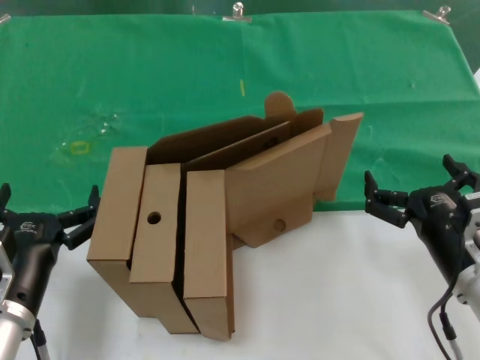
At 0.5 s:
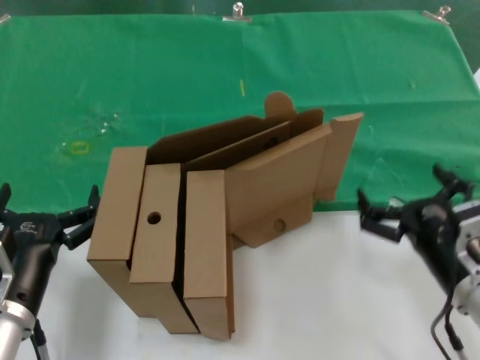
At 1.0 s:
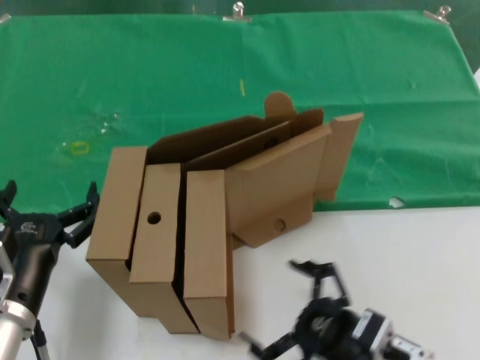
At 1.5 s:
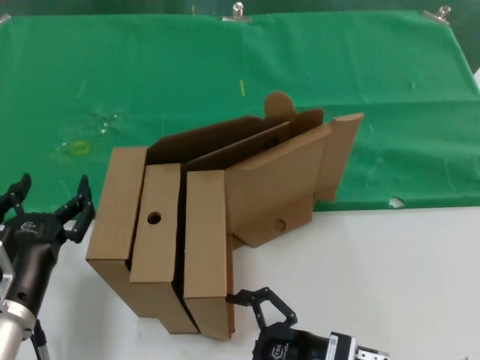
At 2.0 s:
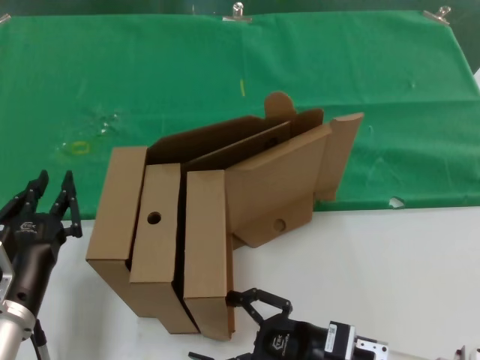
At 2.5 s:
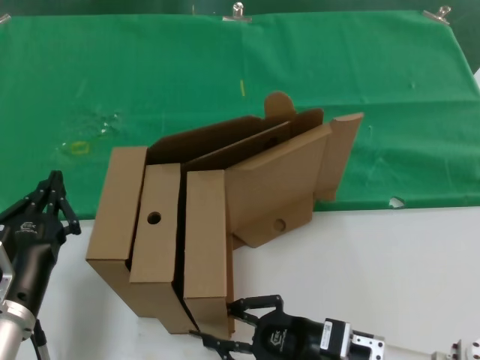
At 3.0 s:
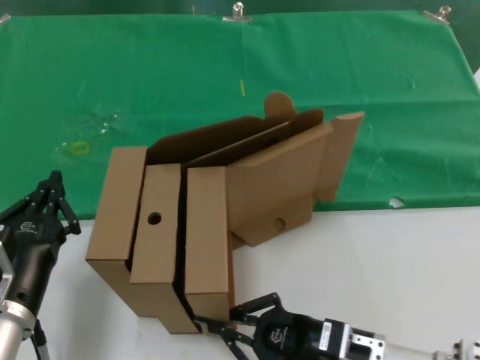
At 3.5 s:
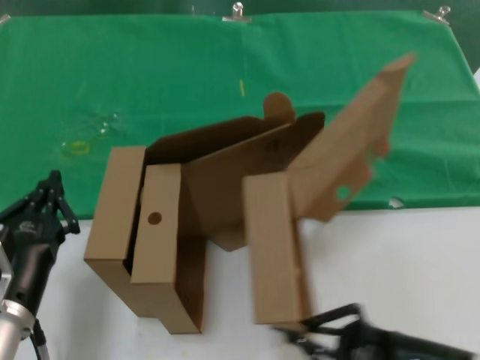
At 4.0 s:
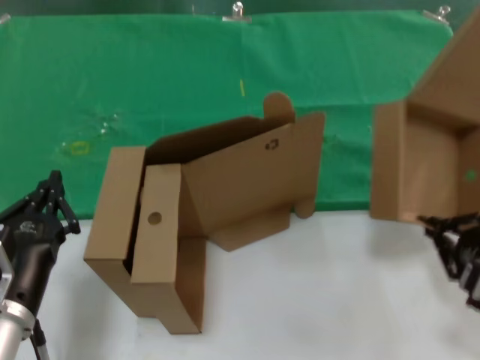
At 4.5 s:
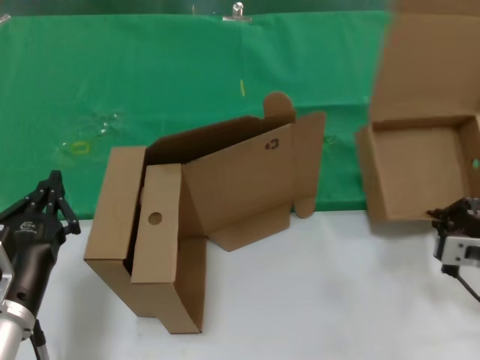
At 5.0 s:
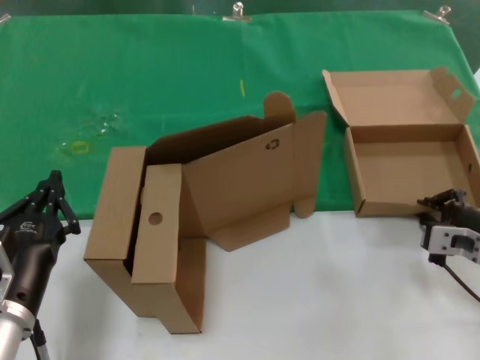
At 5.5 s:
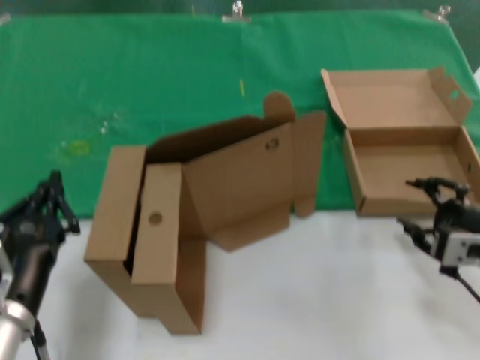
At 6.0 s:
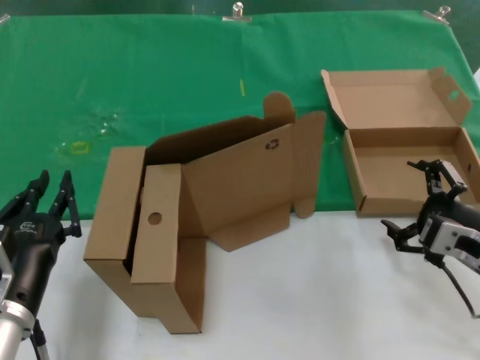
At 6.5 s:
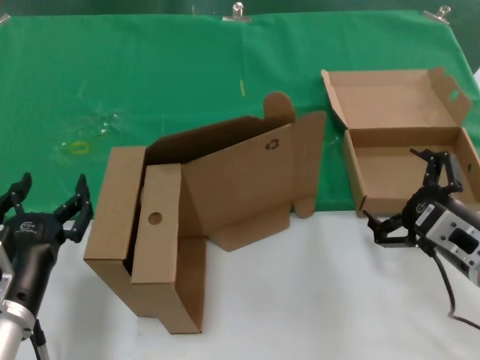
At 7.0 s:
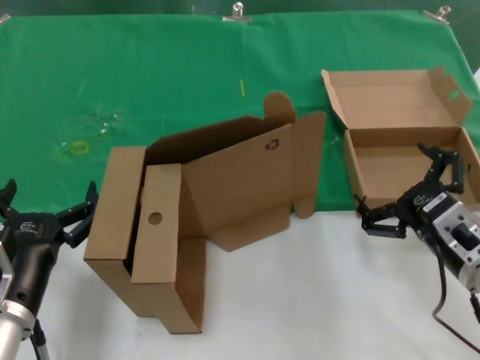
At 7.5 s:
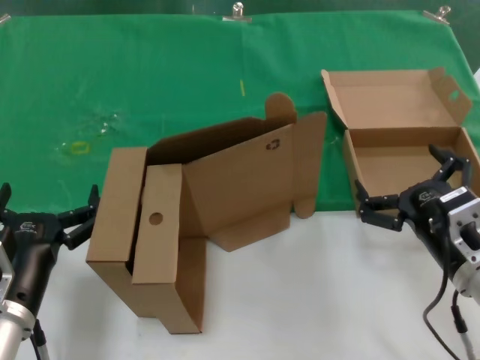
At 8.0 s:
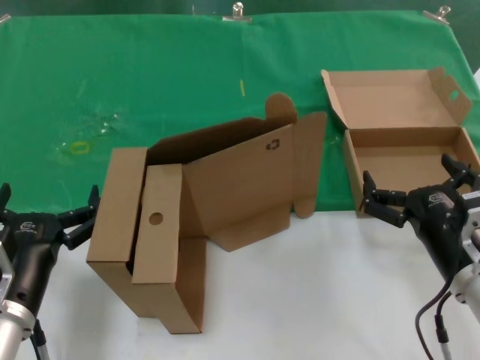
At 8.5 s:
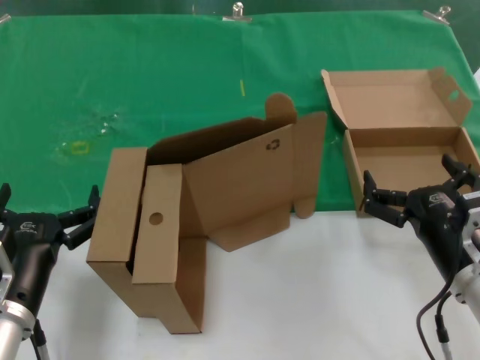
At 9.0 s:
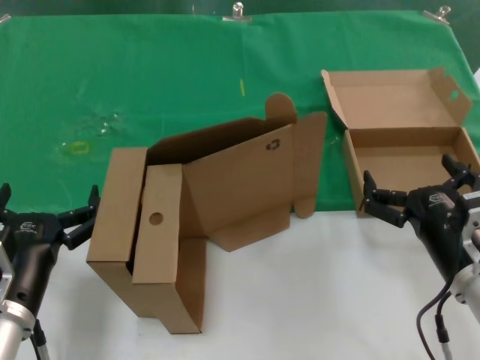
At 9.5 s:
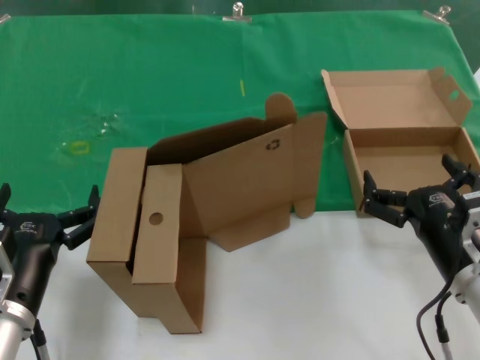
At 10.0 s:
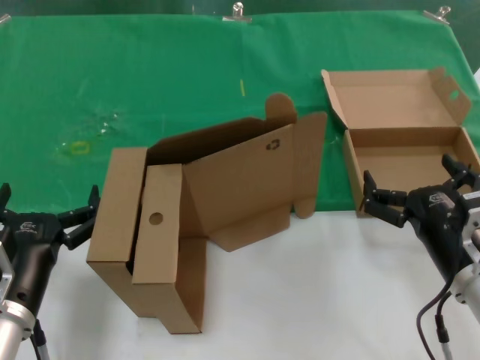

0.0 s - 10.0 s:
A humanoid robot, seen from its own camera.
Task of the whole recording: pick up the paper box and put it at the back.
Step, 0.0 s - 2.5 s: Grasp the paper box.
Step, 3.0 s - 5.0 s: Place the paper box on the table.
0.0 s - 2.0 s: The right hand heads downward and to the left, covering about 10 cm.
2.0 s - 4.0 s: The right hand travels to the right and upward by approximately 20 cm.
4.0 s - 6.0 s: The right hand moves forward, approximately 5 cm.
6.0 s - 8.0 s: The right hand heads to the left, covering some 5 cm.
8.0 s - 10.0 s: Neither hand changes place.

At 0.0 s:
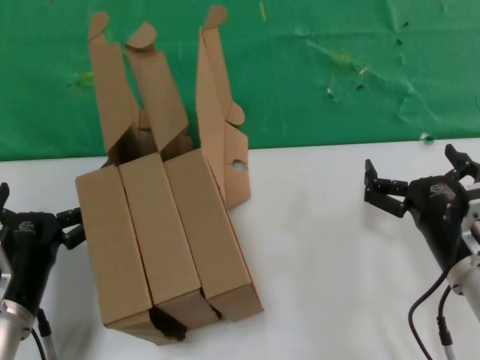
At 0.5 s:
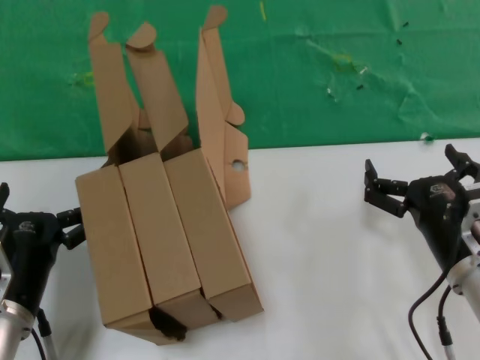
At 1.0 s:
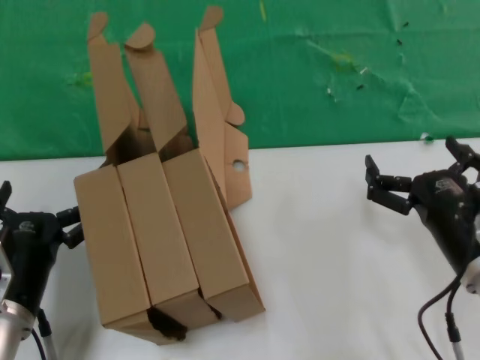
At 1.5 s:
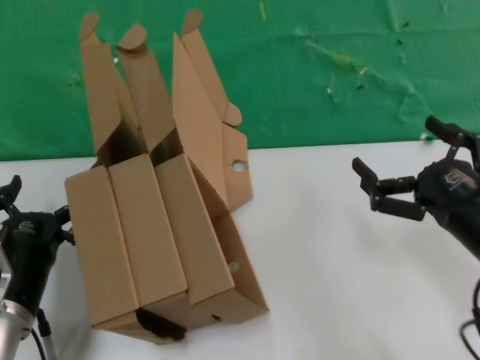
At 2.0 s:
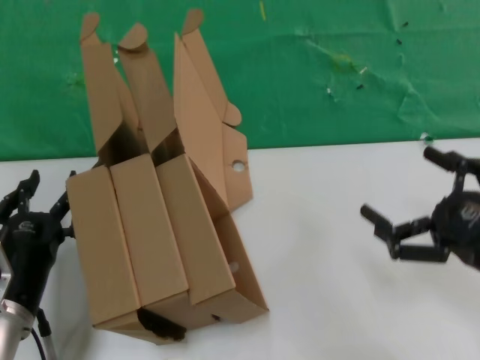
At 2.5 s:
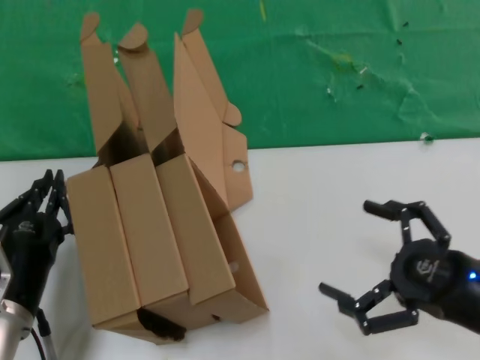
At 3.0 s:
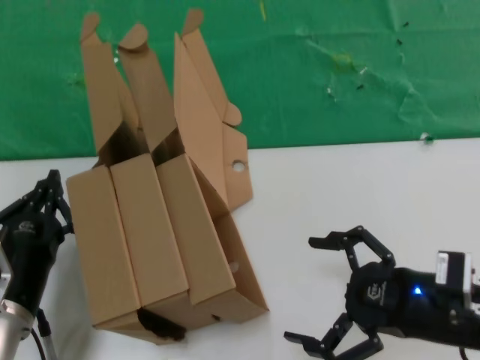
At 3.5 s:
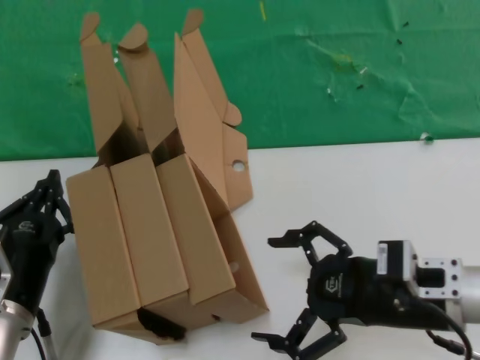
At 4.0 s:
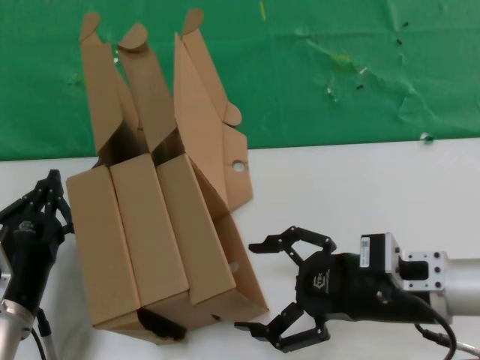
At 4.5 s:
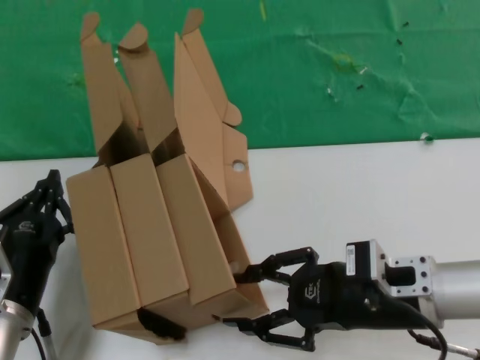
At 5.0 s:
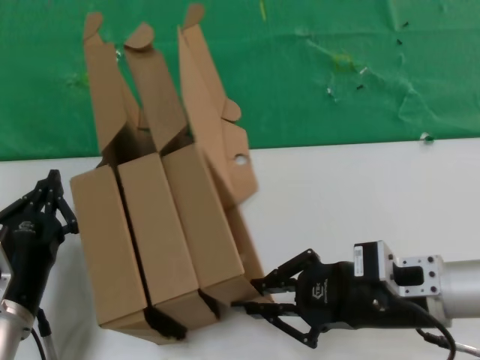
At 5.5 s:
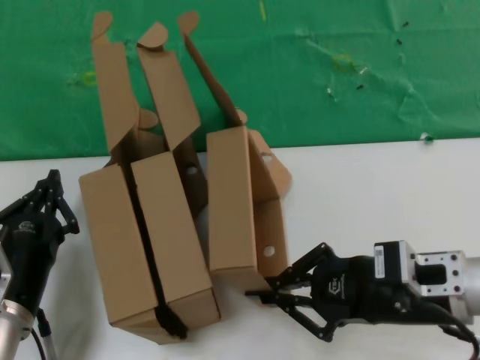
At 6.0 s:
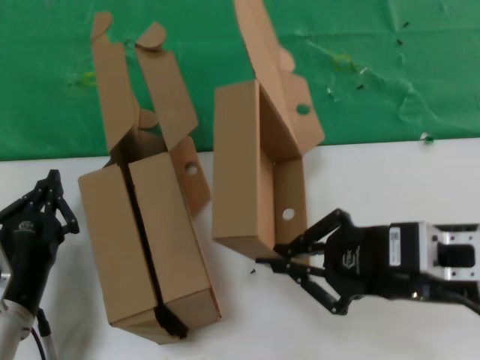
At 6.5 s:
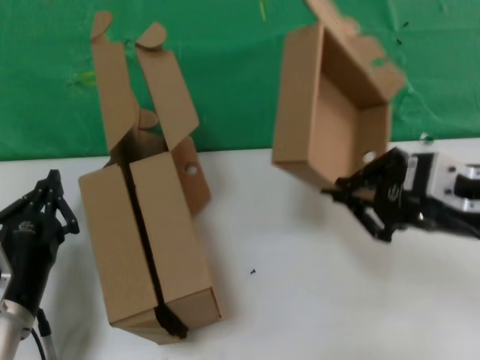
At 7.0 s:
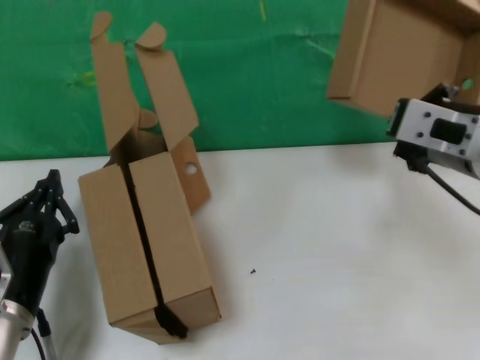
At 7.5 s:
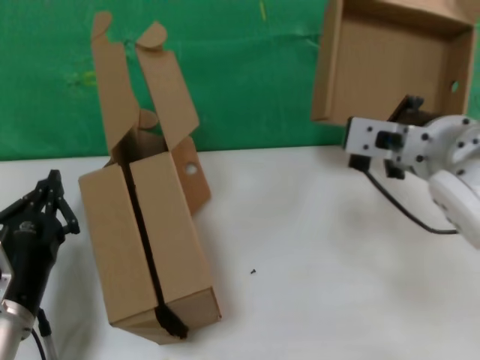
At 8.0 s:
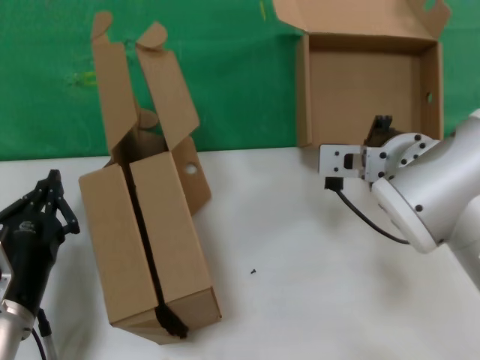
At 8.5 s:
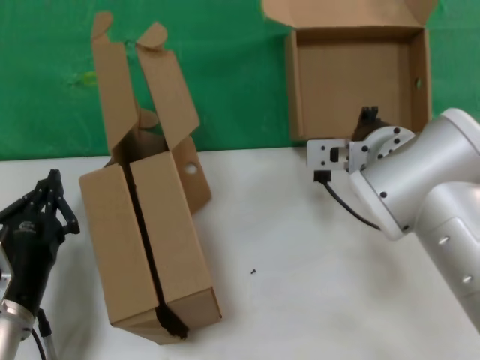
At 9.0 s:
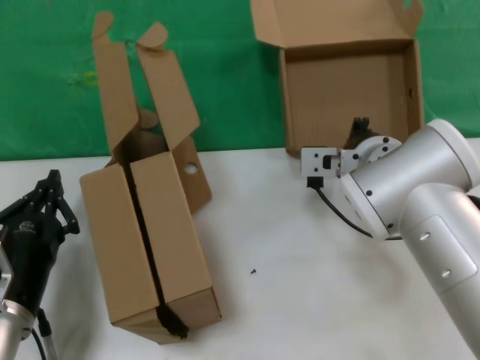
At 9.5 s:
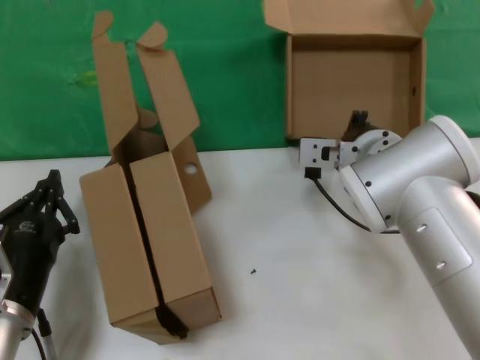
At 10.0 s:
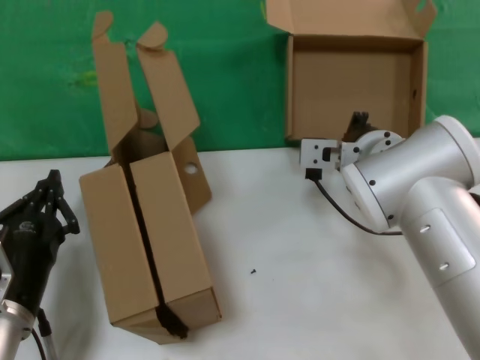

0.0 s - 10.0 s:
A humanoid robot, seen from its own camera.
Task of the whole recording: pick up the paper box and put it at the back.
Step, 0.0 s - 5.0 s: Grasp the paper box.
0.0 s - 2.0 s: The right hand moves to the right and backward, roughly 10 cm.
2.0 s - 4.0 s: The right hand moves to the left and forward, some 15 cm.
4.0 s - 6.0 s: The right hand shifts some 5 cm upward.
6.0 s - 8.0 s: The right hand moves forward and to the left, roughly 15 cm.
8.0 s - 10.0 s: The right hand shifts about 5 cm forward.

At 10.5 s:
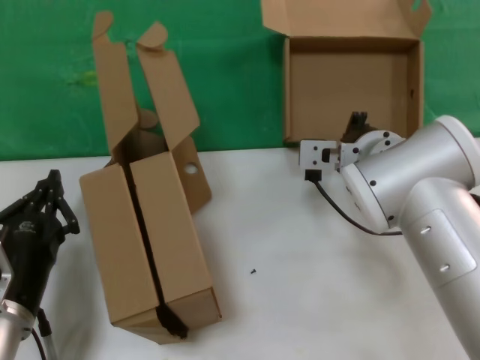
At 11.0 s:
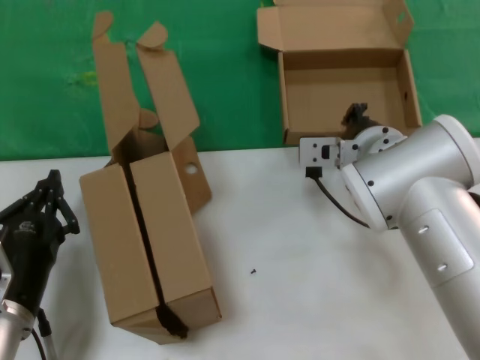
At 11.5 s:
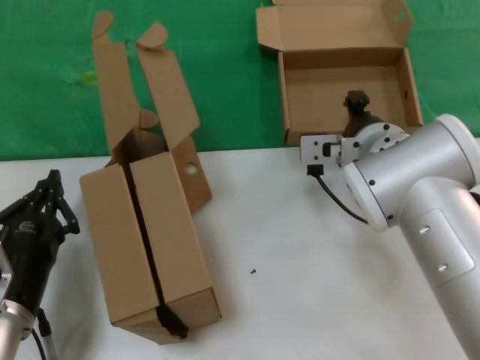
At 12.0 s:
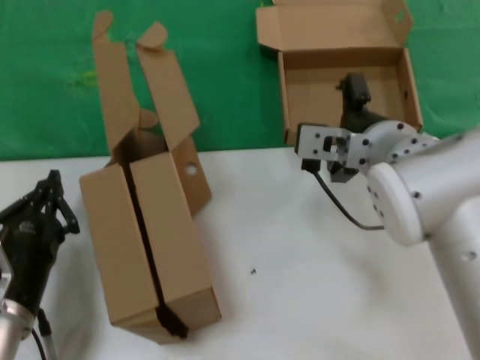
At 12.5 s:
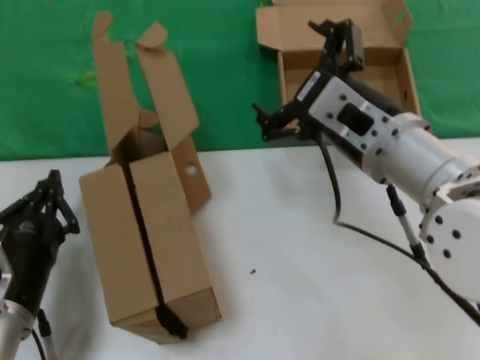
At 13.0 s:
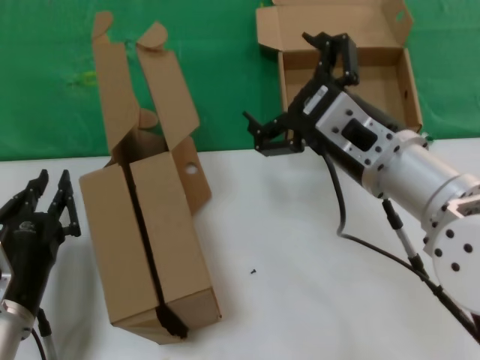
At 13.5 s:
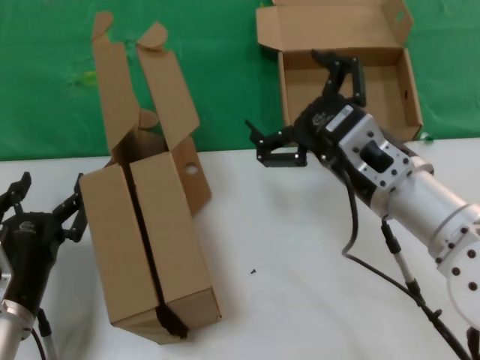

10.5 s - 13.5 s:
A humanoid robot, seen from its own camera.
Task of the whole recording: pick up the paper box and put it at the back.
10.5 s - 12.0 s: The right hand ends up about 5 cm from where it was.
12.0 s - 13.5 s: The right hand travels backward by some 5 cm.
